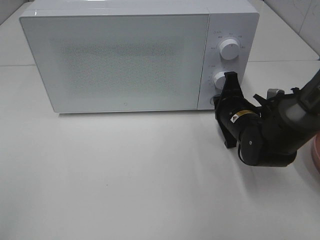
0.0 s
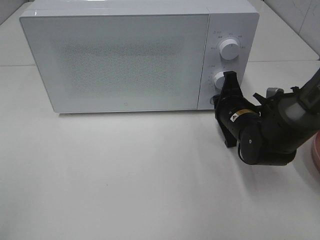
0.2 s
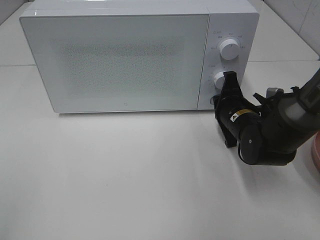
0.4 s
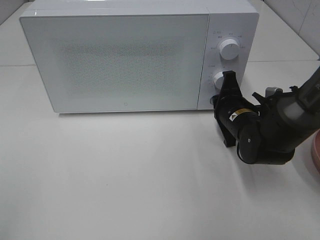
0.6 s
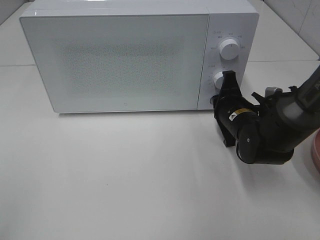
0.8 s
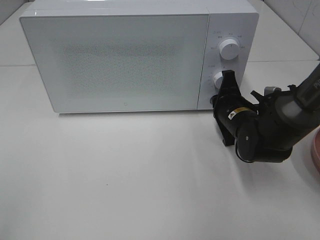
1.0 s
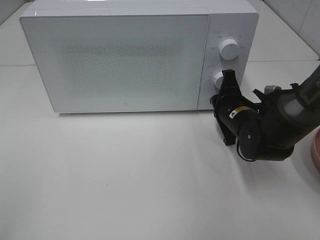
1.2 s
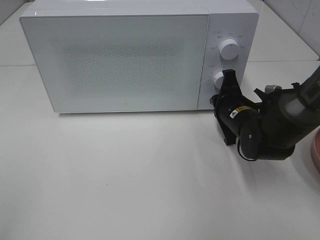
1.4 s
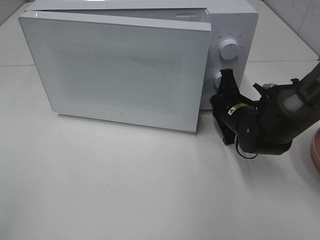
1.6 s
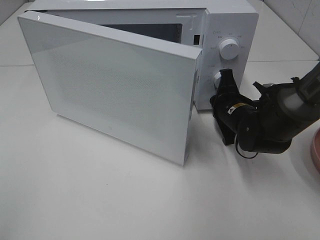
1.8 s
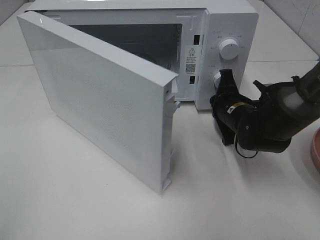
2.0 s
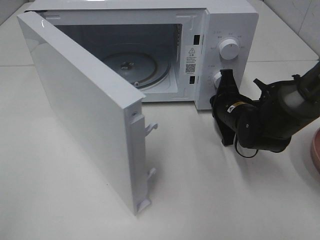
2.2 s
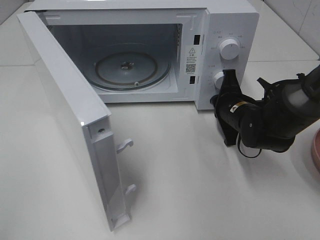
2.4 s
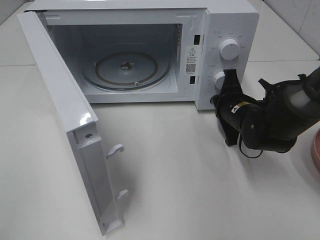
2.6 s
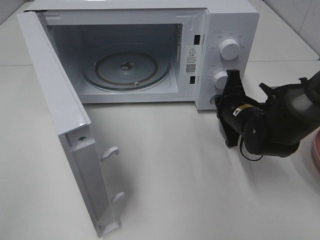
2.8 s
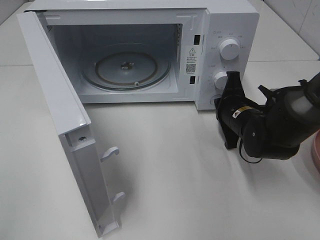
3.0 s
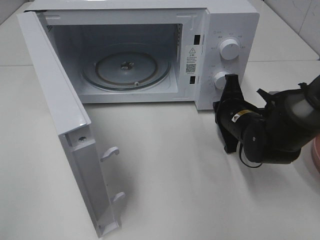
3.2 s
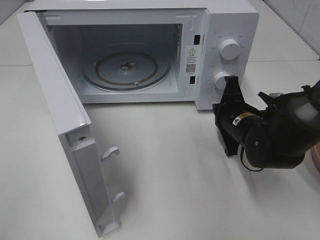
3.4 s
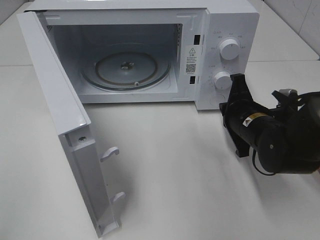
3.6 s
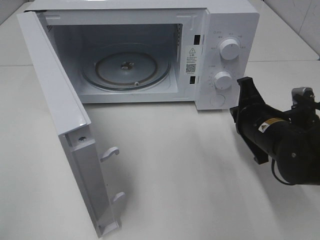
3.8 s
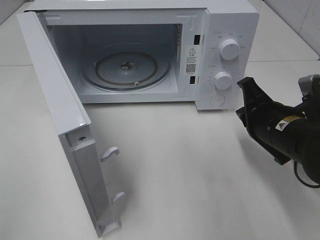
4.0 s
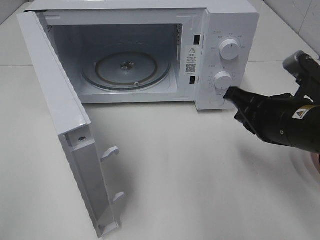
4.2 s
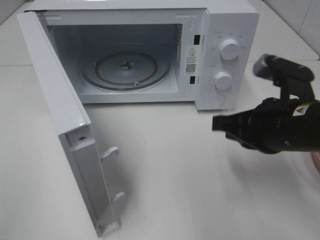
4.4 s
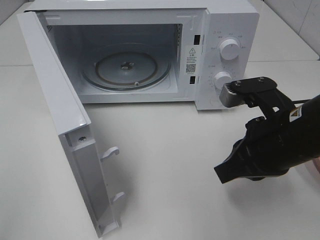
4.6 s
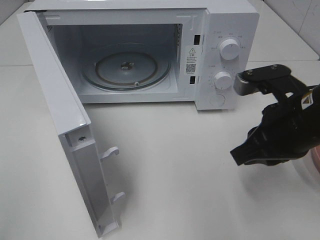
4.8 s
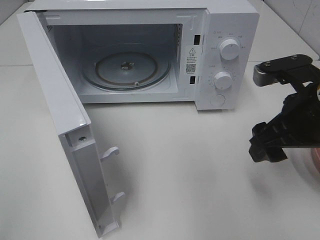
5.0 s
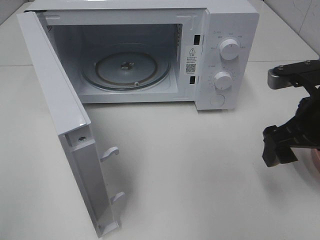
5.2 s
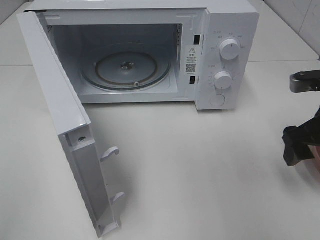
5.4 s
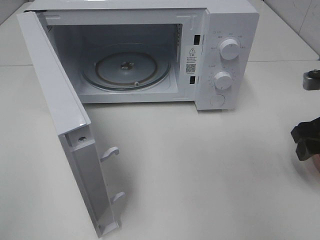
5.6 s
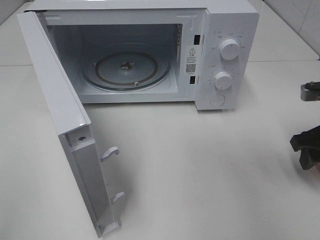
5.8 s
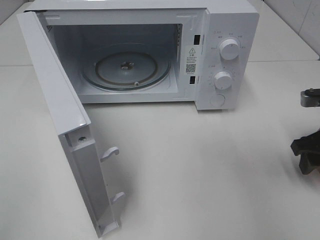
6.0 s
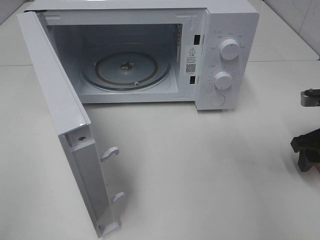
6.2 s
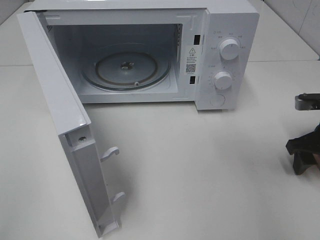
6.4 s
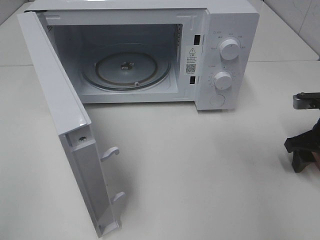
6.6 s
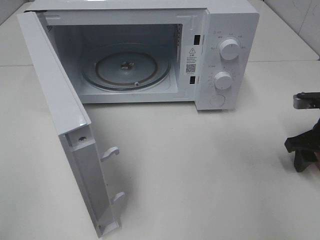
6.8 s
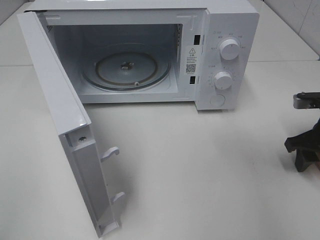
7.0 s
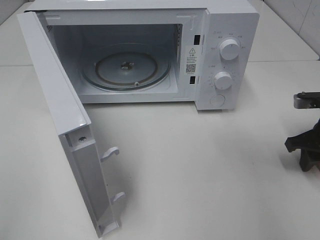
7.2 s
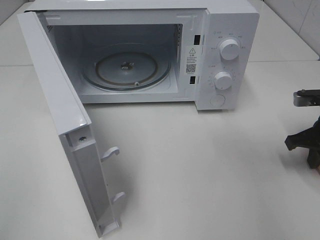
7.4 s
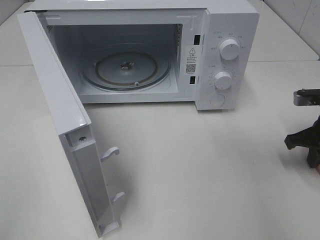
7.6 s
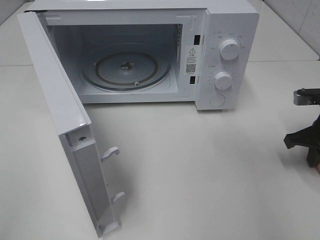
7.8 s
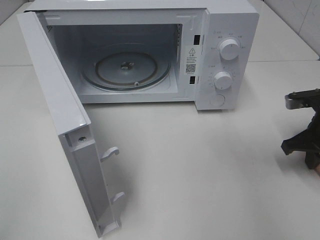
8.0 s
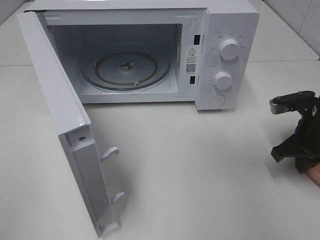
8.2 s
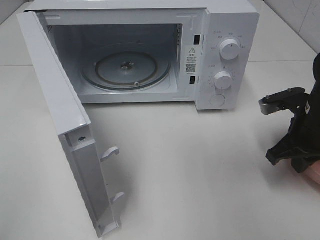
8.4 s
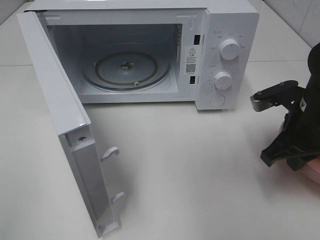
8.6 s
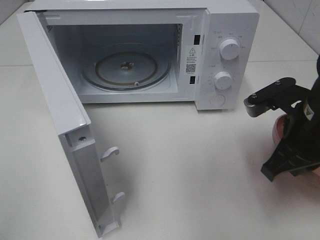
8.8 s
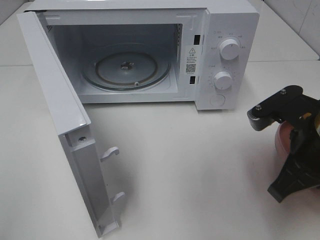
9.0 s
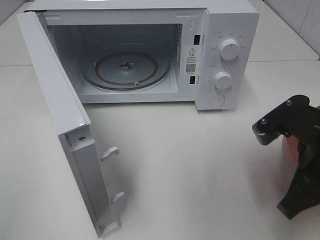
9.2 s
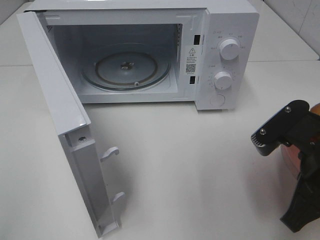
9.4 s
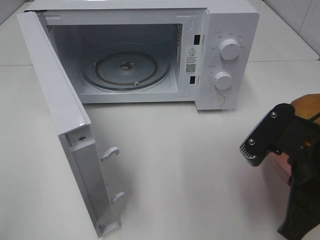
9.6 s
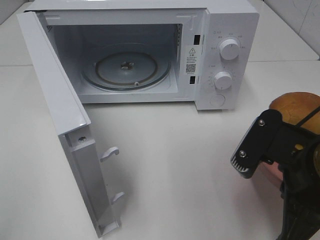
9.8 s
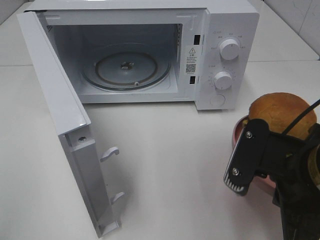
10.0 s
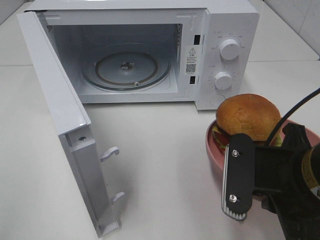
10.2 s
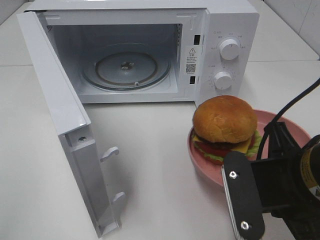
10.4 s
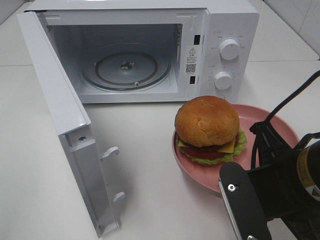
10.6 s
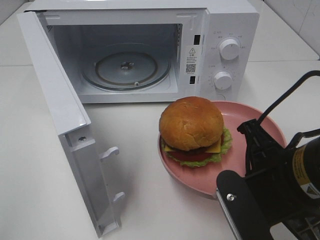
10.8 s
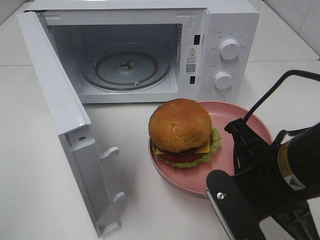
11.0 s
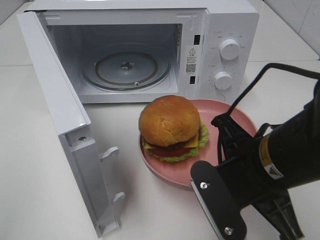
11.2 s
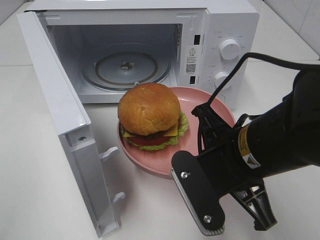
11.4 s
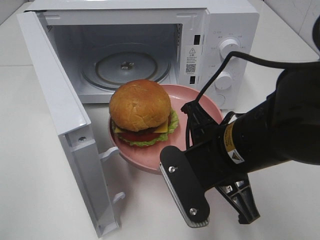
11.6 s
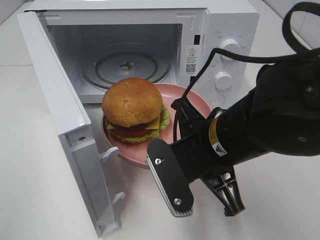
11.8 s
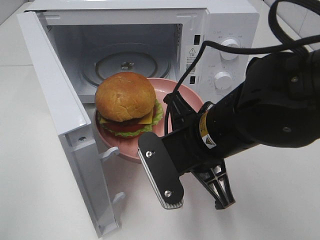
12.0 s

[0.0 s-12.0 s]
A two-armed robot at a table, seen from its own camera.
Task of the whole recording: Heat the burger.
Step, 0.0 to 3.0 s: Right hand: press the switch.
Step, 3.2 to 7.4 s: Right hand: grab the plate with the hamburger.
0.0 to 1.6 s: The grippers stay close to where they were, moving slightly.
3.0 to 4.4 s: The right gripper shifts roughly 15 cm backward and upward.
4.4 to 6.0 s: The right gripper goes approximately 15 cm to the right, and opens.
6.0 to 7.6 s: The right gripper closes up.
7.6 to 9.0 s: The right gripper moves to the left, backward and upward, about 20 cm.
9.0 to 10.4 s: The right gripper goes about 10 cm backward and to the left.
10.4 to 12.0 s: The right gripper is displaced to the left and forward by some 10 cm.

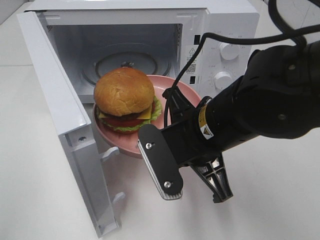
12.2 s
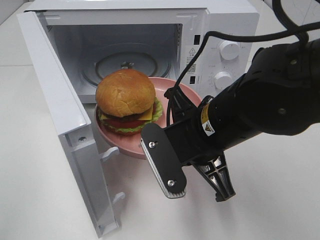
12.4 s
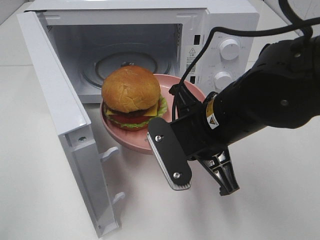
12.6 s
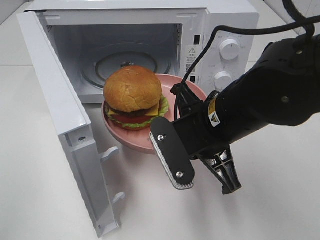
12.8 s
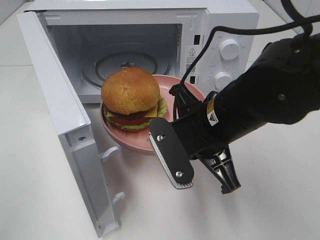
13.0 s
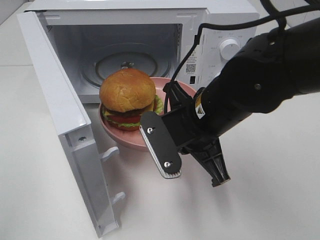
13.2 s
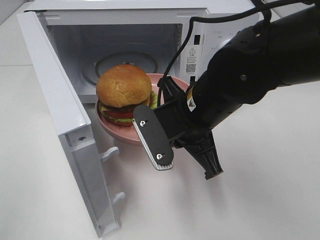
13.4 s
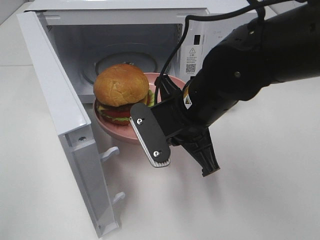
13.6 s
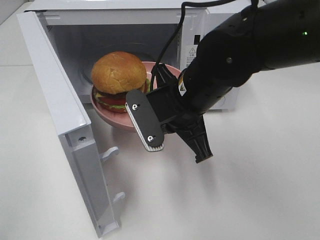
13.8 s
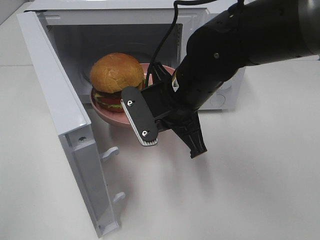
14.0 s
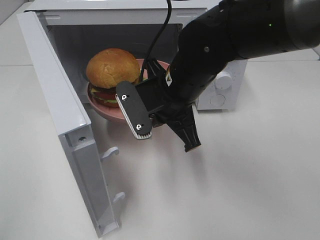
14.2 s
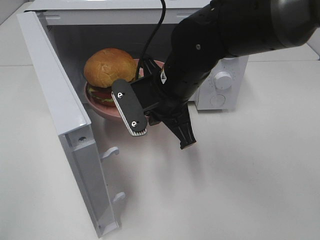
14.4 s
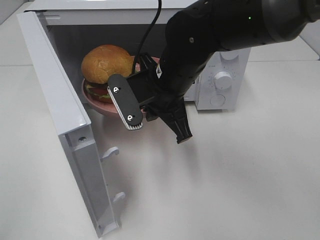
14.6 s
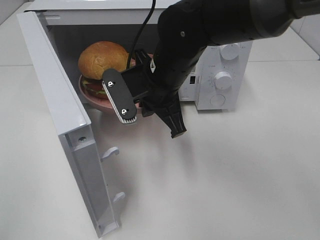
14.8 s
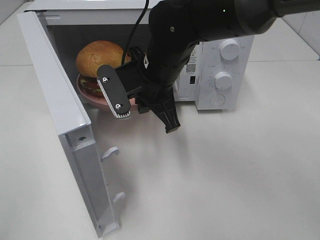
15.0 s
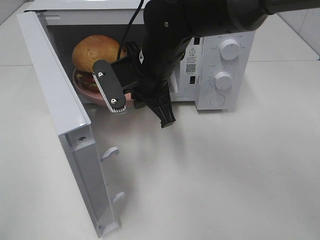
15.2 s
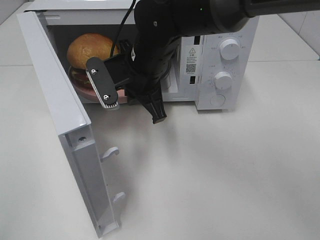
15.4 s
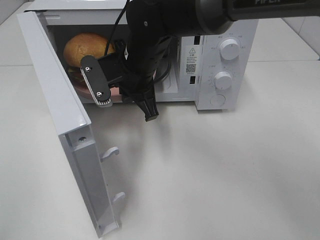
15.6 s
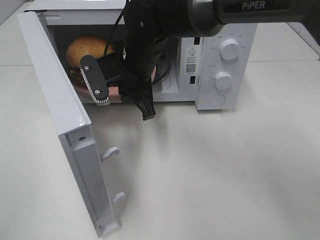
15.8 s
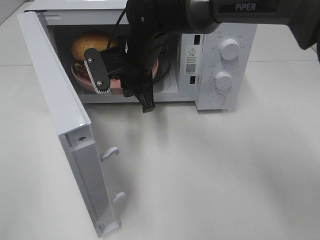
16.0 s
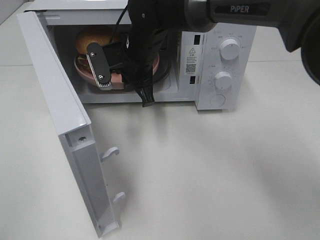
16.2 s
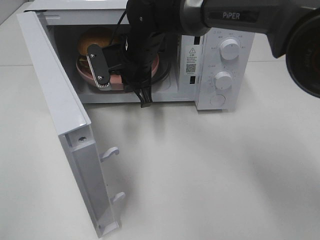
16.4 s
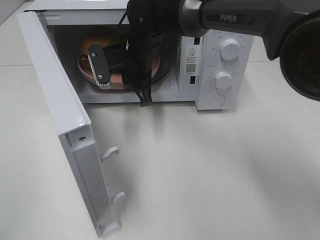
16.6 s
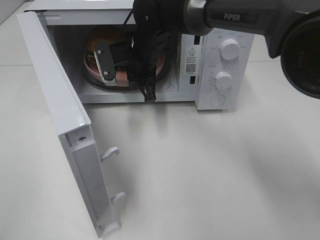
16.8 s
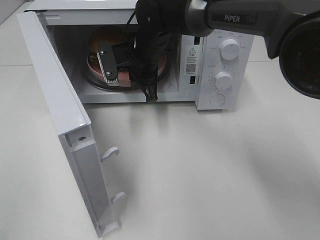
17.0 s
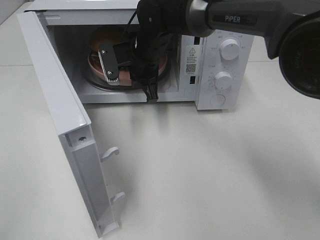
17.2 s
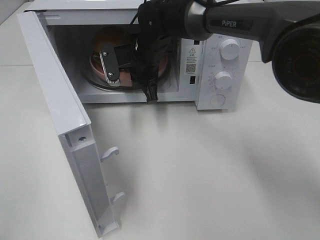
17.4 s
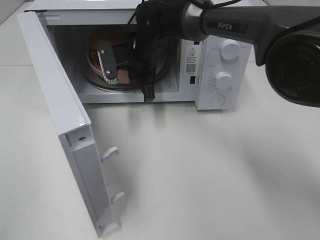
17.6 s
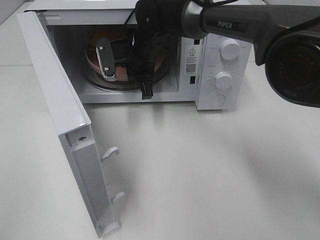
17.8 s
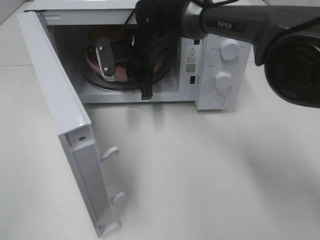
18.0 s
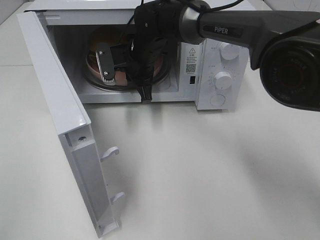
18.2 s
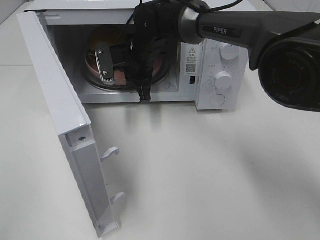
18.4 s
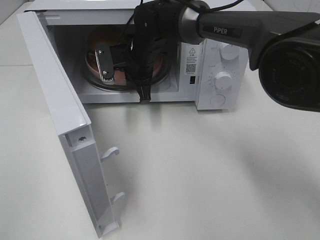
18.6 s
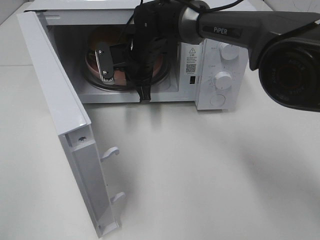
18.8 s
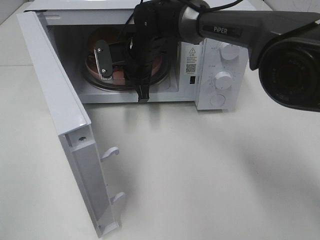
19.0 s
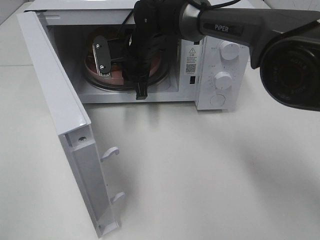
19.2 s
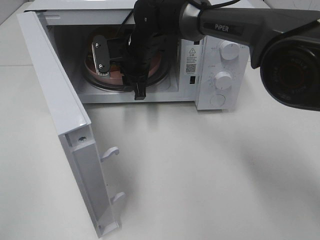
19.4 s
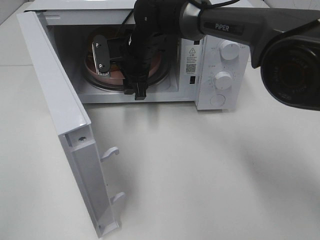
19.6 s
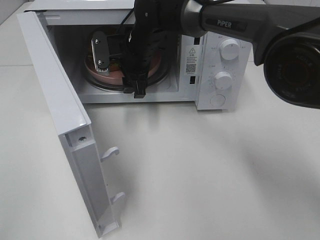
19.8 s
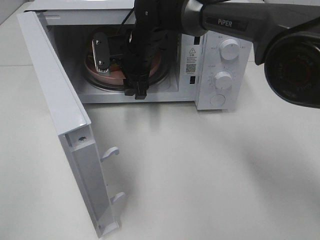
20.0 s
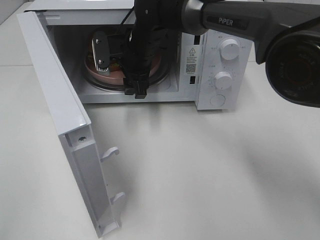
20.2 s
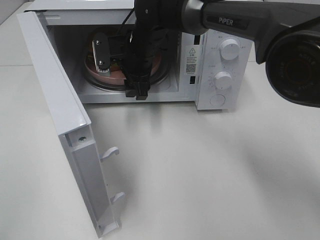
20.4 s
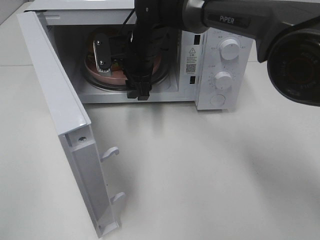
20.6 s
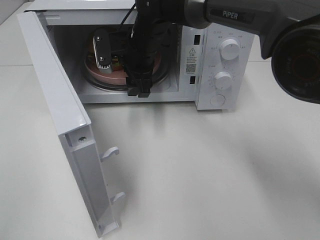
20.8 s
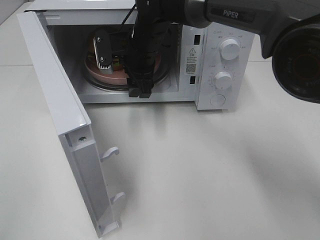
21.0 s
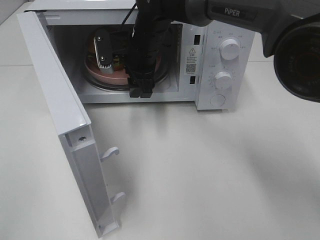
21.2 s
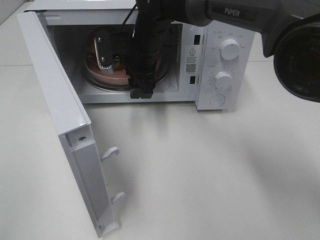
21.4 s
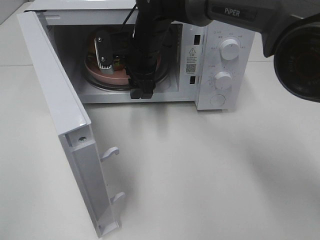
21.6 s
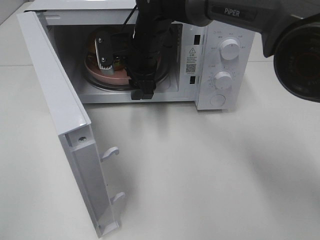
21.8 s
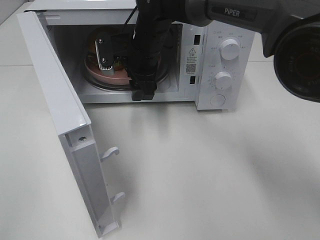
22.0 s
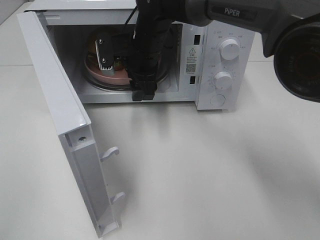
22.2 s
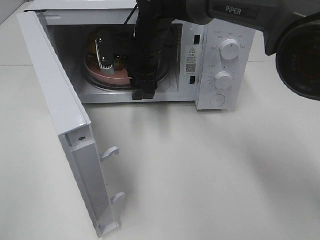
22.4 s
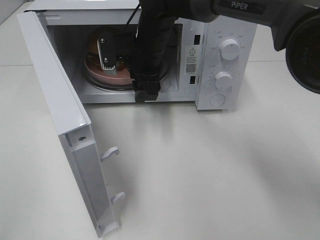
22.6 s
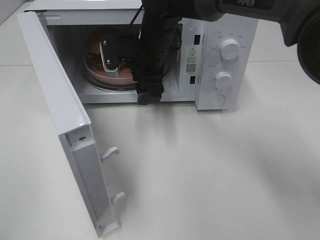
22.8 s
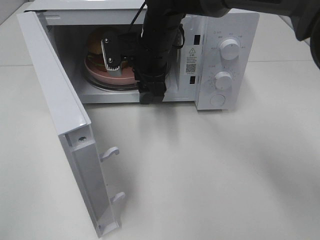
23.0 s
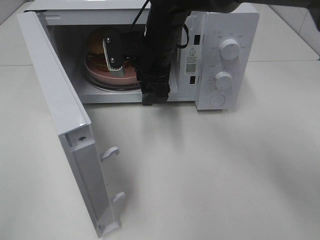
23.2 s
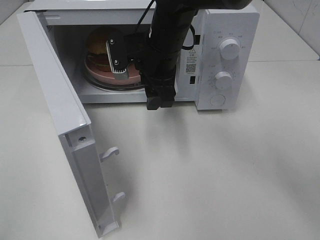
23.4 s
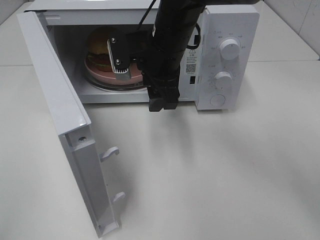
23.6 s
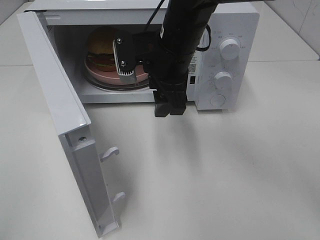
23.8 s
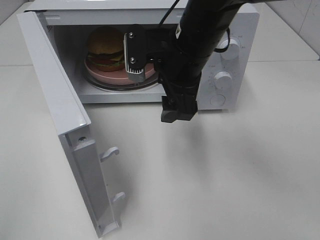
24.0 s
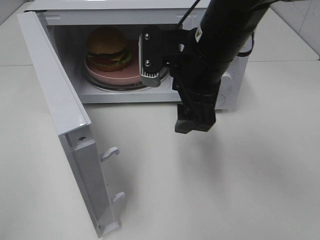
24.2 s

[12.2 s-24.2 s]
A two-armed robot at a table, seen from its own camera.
Task of the whole recording: Heat the burger.
Step, 12.2 to 19.2 s: Right hand: place the plate in the microwave.
12.2 to 13.8 s: The right gripper shifts some 5 cm forward.
13.8 to 15.2 s: The right gripper travels forward and to the left by about 10 cm.
15.2 to 16.6 s: The right gripper moves forward, some 10 cm.
16.6 to 18.2 s: The grippers move only a little.
18.2 to 19.8 s: The right gripper opens.
19.8 to 21.2 s: The grippers make only small movements.
21.2 to 22.6 s: The two grippers keep their place.
22.6 to 24.2 s: The right gripper heads backward, to the right and upward, covering about 15 cm.
